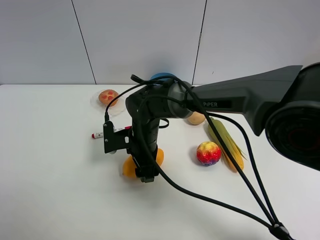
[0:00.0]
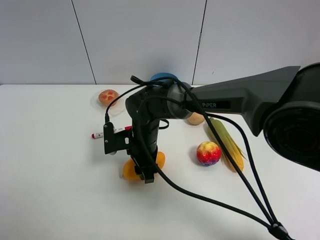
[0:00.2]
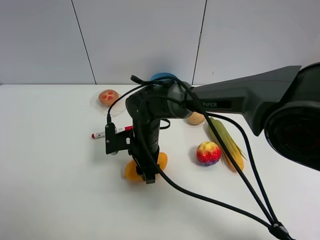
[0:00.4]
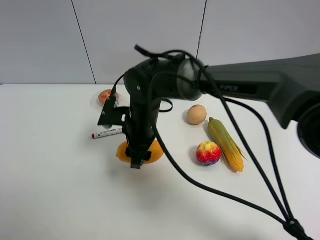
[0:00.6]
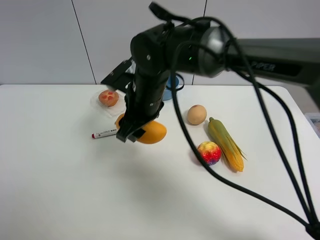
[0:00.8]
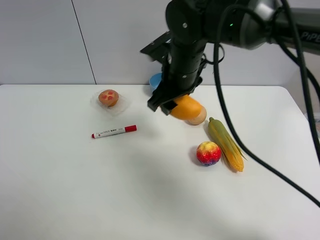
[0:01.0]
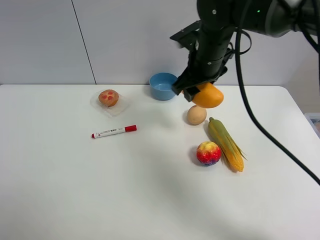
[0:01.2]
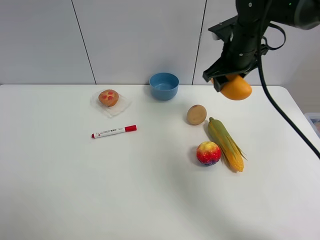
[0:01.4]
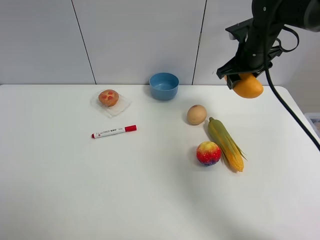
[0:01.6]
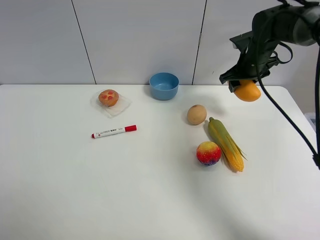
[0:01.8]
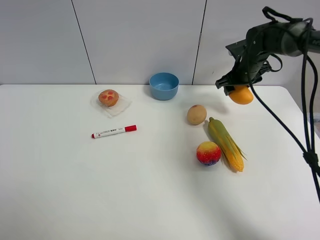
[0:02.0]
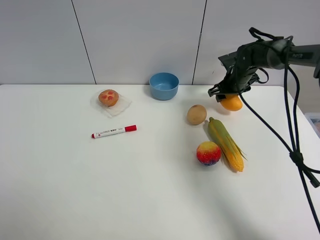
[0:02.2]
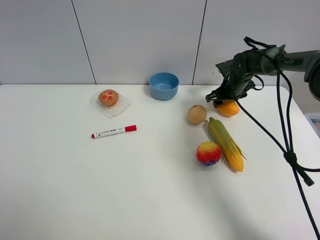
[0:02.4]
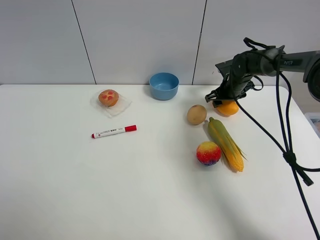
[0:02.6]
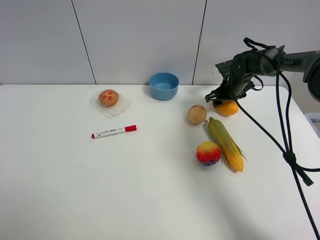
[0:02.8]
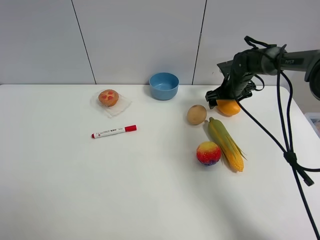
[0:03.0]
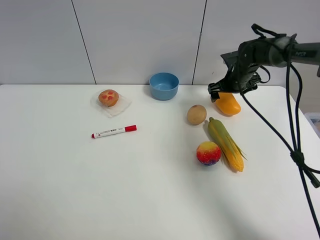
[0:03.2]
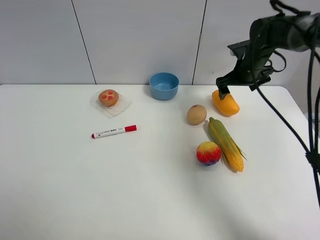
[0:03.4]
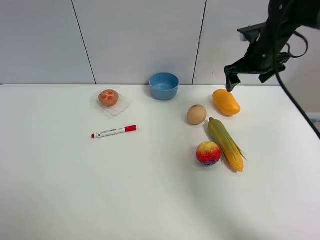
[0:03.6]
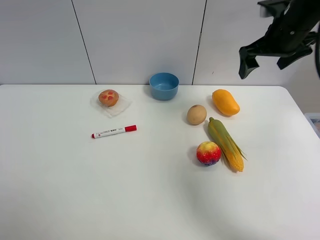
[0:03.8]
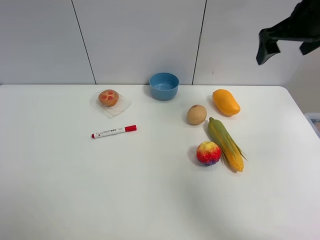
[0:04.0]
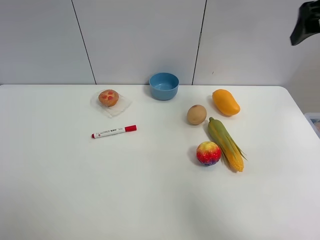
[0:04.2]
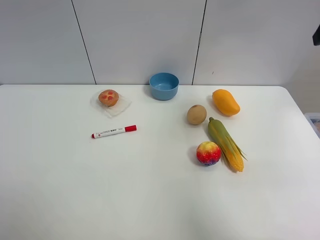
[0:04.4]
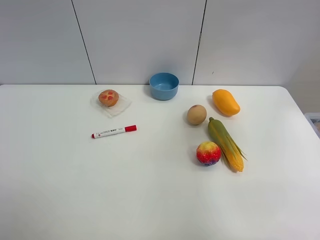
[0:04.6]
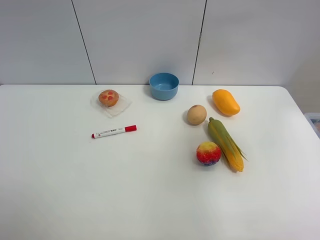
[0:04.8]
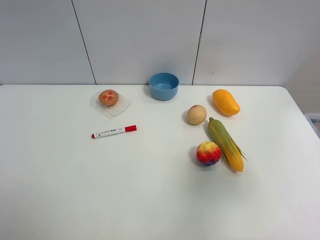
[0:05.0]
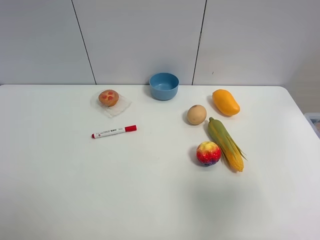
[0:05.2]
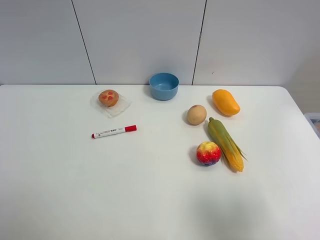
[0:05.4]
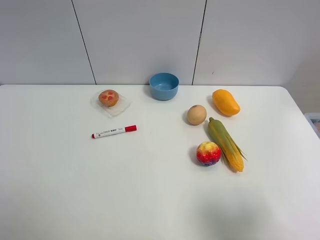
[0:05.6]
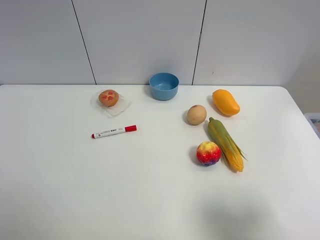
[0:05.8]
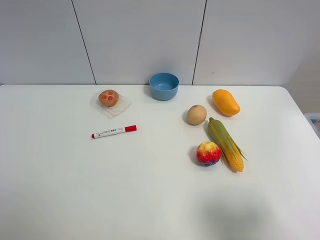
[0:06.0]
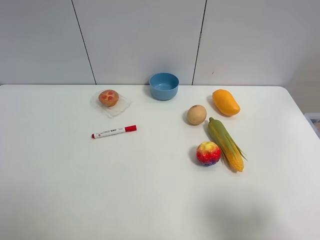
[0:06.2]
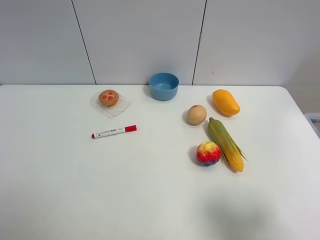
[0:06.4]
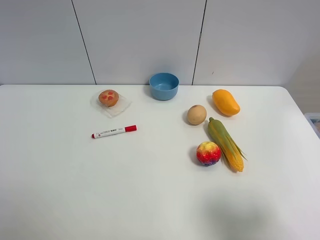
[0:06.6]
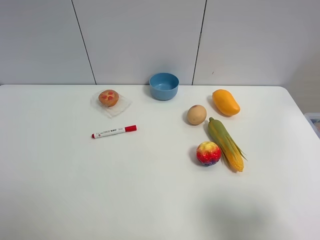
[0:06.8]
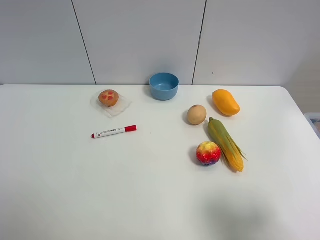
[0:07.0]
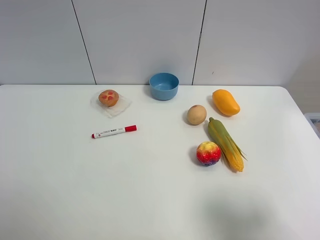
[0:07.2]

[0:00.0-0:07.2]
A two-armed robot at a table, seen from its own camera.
Task of the whole recording: the gripper move the object.
Step, 0.2 to 3.0 s: Place the mango on the table with the right gripper.
0.0 to 1.4 s: The right gripper goes approximately 25 cm to the right, upward and forward, and closes up.
1.4 to 2.8 s: The right gripper shifts about 20 cm downward, forward and to the right.
2.8 to 4.4 s: The right gripper heads upward and backward, covering some 35 cm, and opens.
4.4 to 5.8 s: The right gripper heads backward and downward, covering about 35 cm.

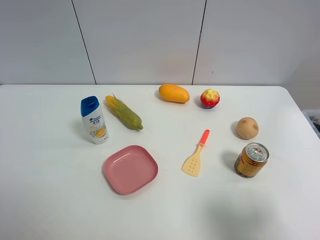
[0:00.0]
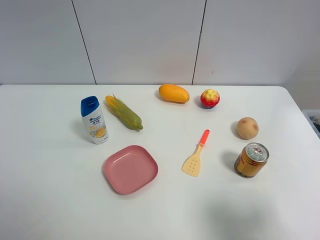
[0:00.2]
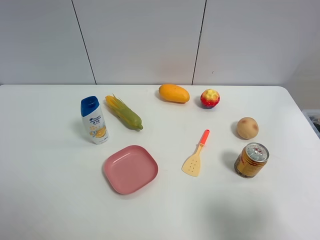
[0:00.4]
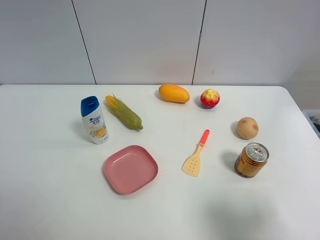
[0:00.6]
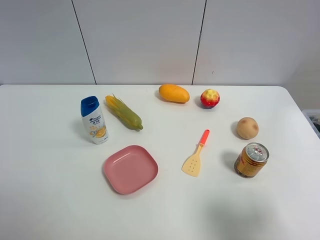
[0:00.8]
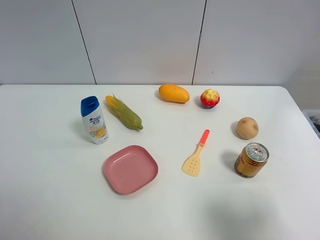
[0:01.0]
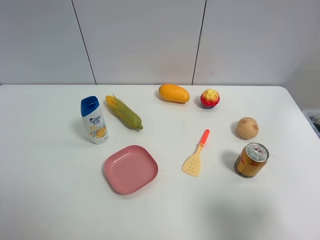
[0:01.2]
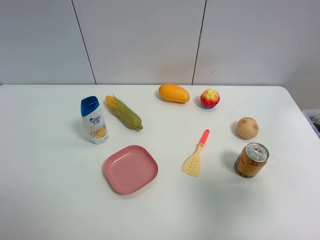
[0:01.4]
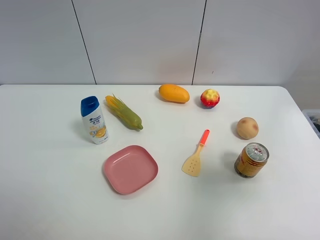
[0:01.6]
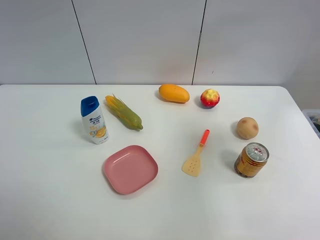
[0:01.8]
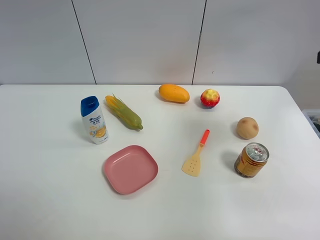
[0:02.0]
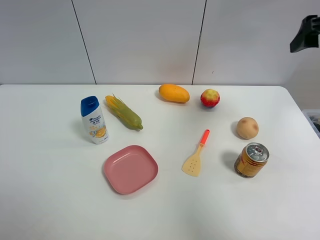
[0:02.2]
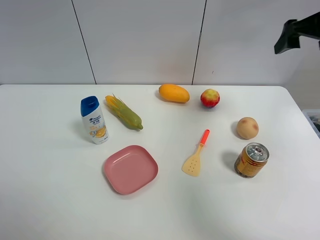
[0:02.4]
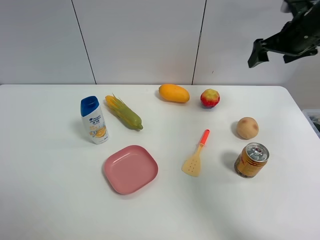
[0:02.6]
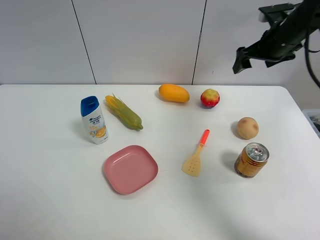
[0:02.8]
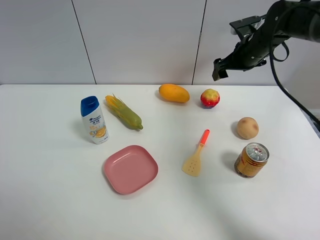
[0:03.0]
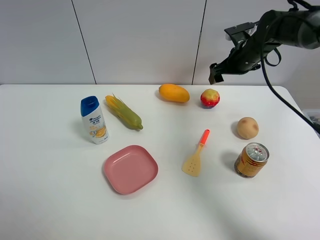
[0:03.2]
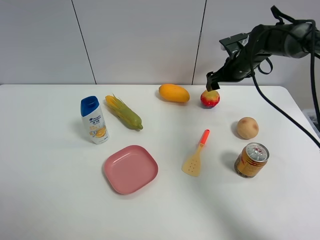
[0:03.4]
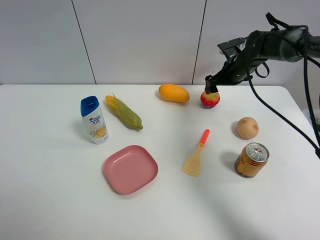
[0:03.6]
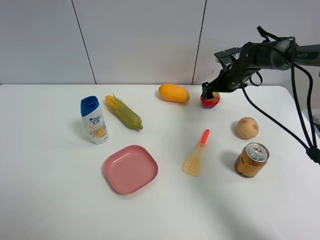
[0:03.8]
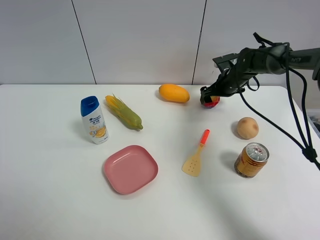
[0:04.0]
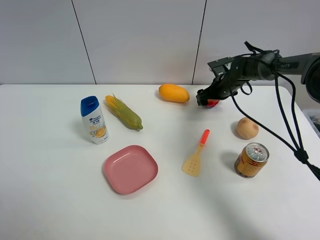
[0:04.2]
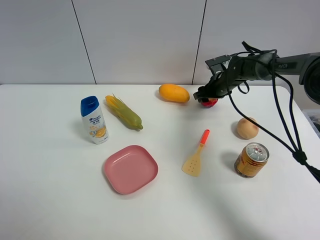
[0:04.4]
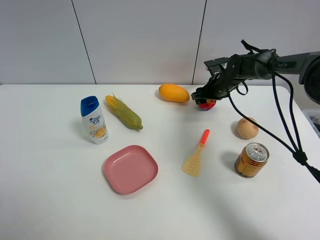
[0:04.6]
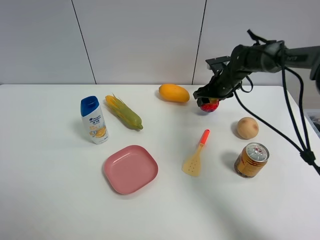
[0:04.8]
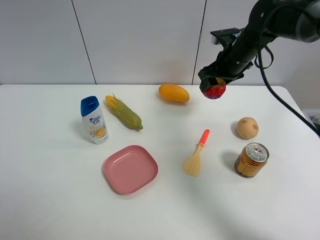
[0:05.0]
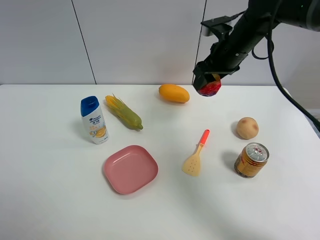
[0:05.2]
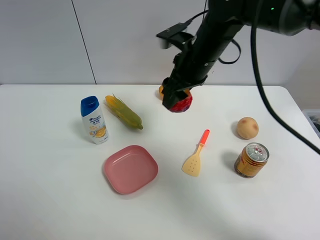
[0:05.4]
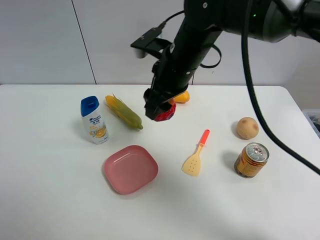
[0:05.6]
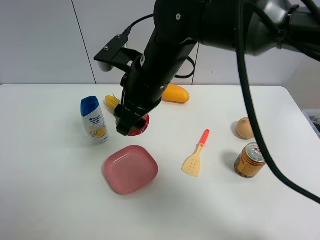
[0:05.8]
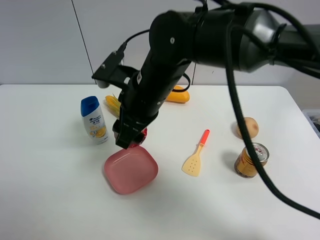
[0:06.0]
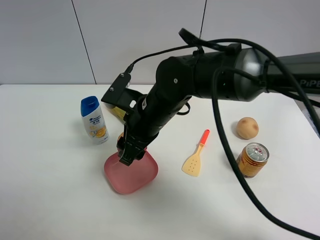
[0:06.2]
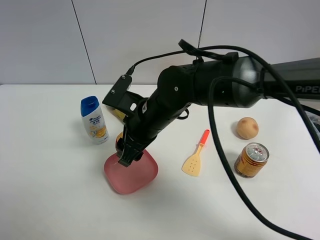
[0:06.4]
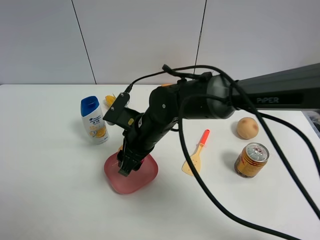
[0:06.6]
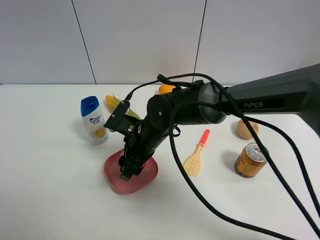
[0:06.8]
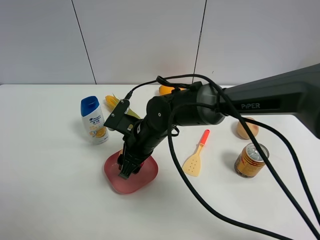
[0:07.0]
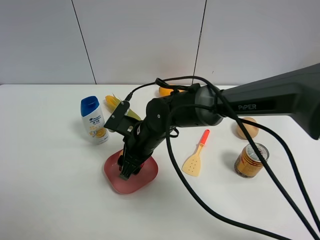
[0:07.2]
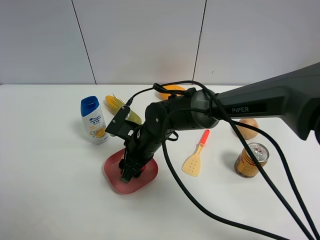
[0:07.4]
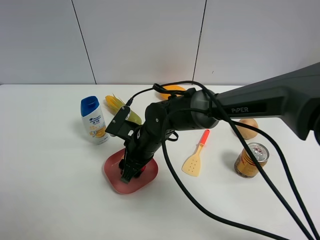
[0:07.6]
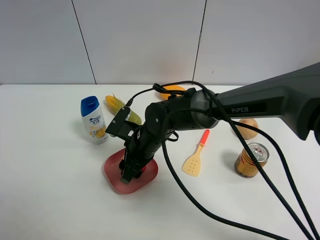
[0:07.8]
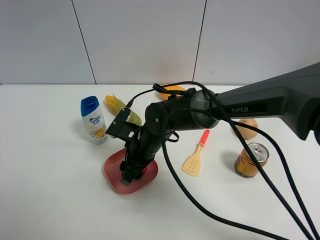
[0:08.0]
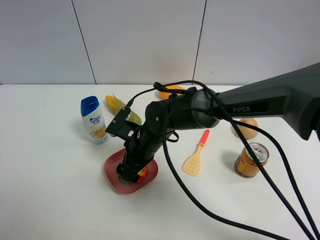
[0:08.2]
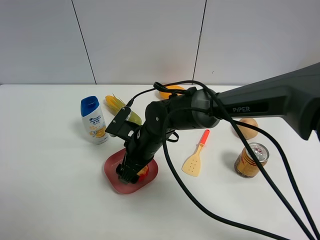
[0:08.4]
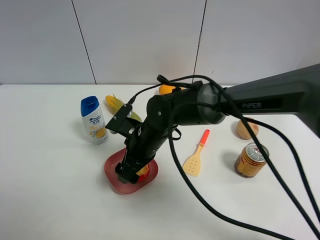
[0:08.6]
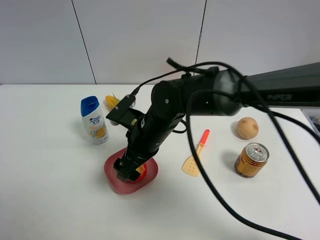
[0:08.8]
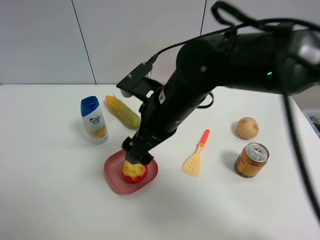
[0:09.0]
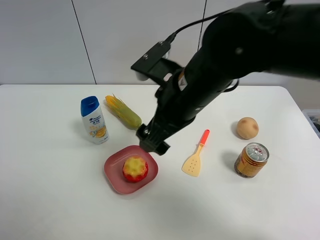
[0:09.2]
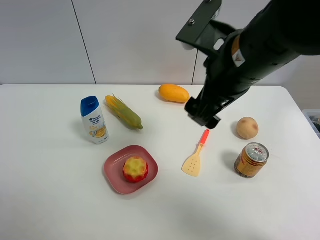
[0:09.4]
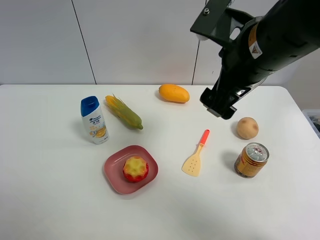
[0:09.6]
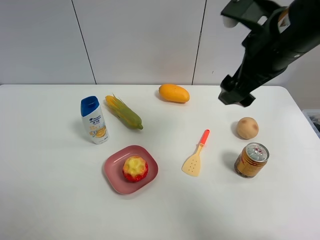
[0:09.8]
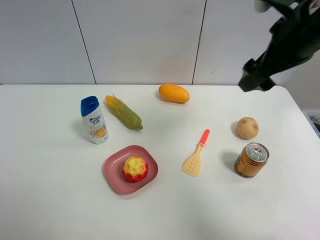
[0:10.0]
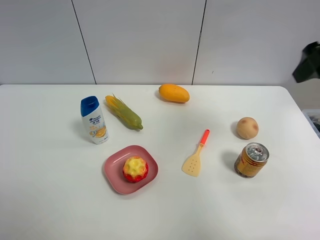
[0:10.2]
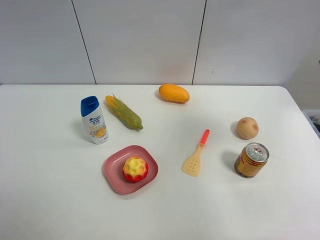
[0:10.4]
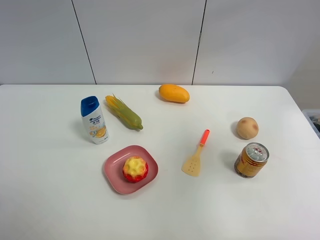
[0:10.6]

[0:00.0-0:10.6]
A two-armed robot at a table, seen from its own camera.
Task of the whole recording: the gripper move the object.
Step, 0.0 to 4.2 s: Grasp the colorful ball with the right gripper.
Step, 4.4 to 8.8 s: Place the colorful ball into the pink plate with the right gripper.
0.0 to 1.6 s: The right gripper heads forward and upward, covering approximately 15 cm.
1.6 to 3.0 s: The right gripper travels forward by some 35 cm.
3.0 to 4.6 s: The right gripper goes roughly 10 cm downward, and closes.
4.6 to 6.0 s: The right gripper moves backward, to the left and upward, roughly 35 cm.
6.0 to 7.6 s: The right gripper shifts roughly 15 cm downward.
7.6 to 9.0 s: The right gripper travels upward by roughly 15 cm, and opens.
9.0 to 10.6 s: The right gripper travels to the right and upward by about 30 cm.

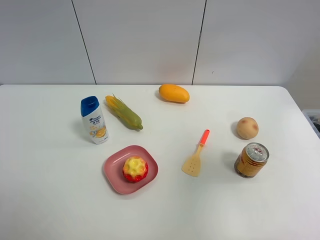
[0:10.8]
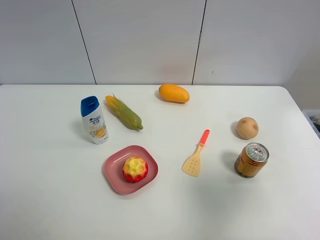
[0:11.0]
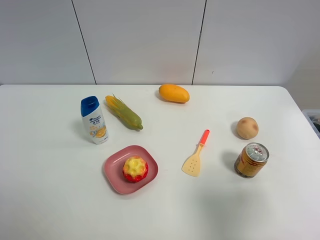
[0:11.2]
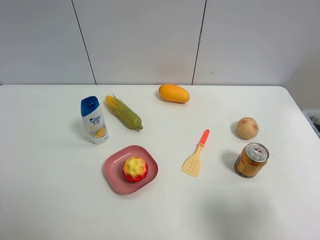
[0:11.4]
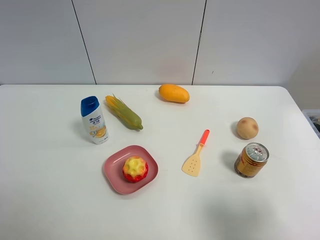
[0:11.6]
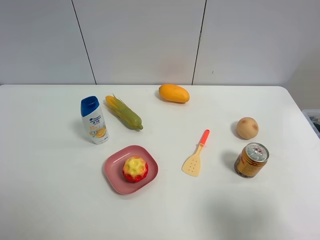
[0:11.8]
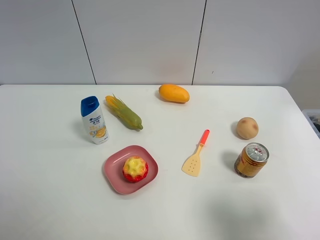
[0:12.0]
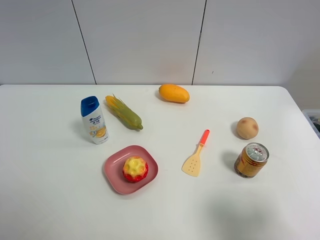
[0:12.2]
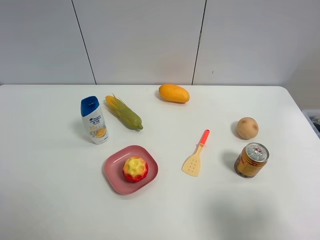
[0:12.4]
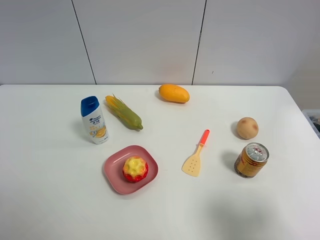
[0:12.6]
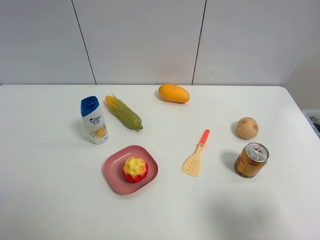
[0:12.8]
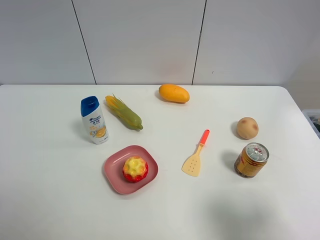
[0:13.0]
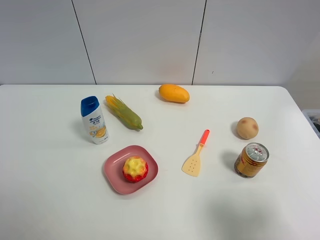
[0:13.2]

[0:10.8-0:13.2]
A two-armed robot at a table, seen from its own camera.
Task of the whole recording: the gripper move the object.
10.8 to 12.0 s: The right gripper is displaced downward and backward by some 15 cm.
12.0 to 13.2 s: Neither gripper changes place.

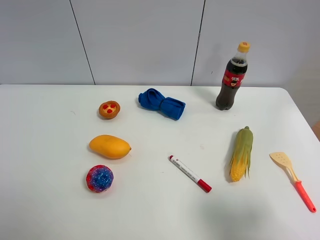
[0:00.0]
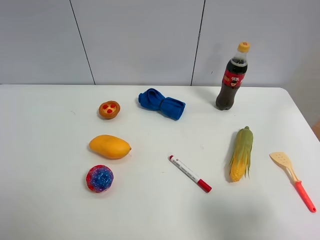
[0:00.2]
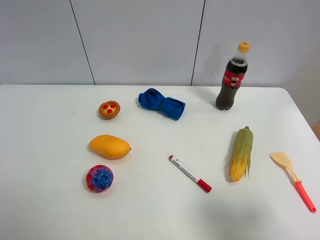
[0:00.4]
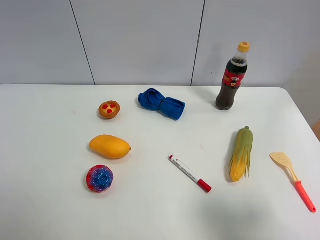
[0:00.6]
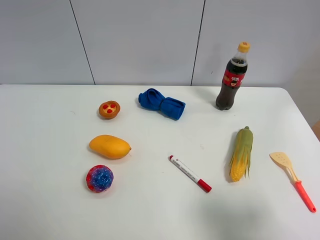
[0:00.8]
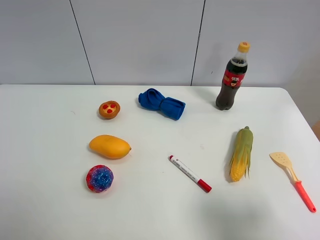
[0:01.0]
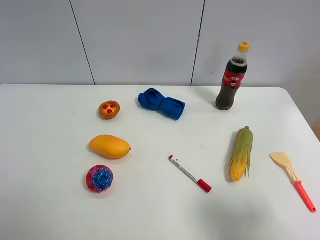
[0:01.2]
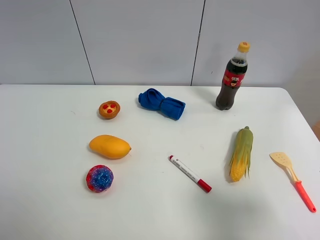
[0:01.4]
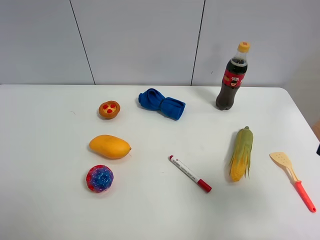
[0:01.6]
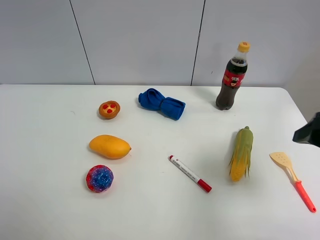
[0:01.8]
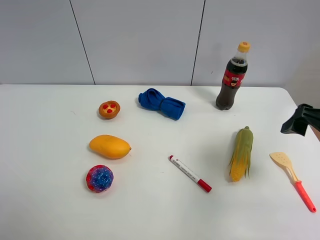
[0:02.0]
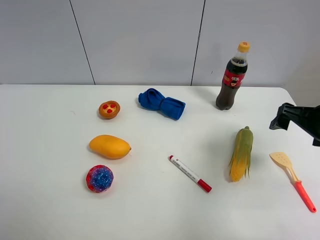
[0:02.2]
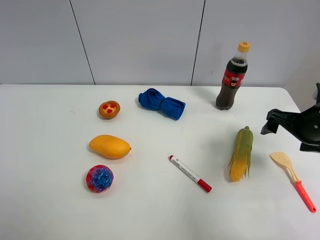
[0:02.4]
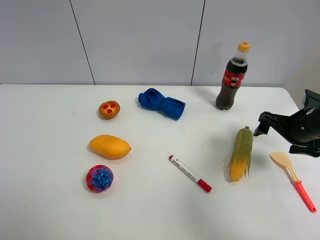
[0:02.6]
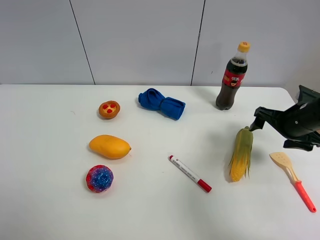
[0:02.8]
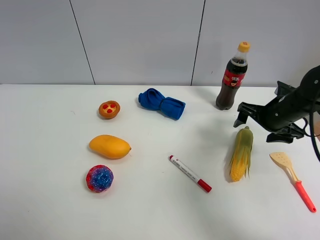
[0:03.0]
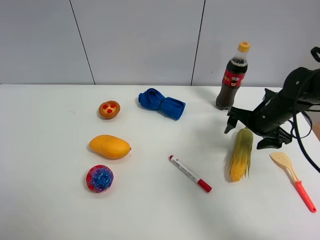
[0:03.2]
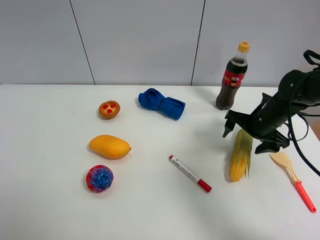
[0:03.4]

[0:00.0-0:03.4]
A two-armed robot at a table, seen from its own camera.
Task of the whole recording: the gripper move the object.
0.0 to 1.6 s: The right gripper moves forward, about 5 cm.
1.6 to 3.4 s: The right gripper is displaced forward and downward by approximately 30 cm.
